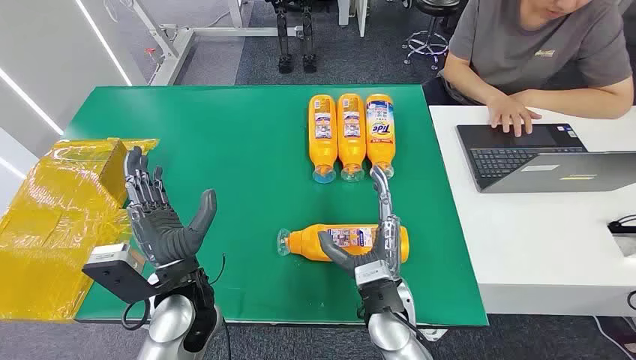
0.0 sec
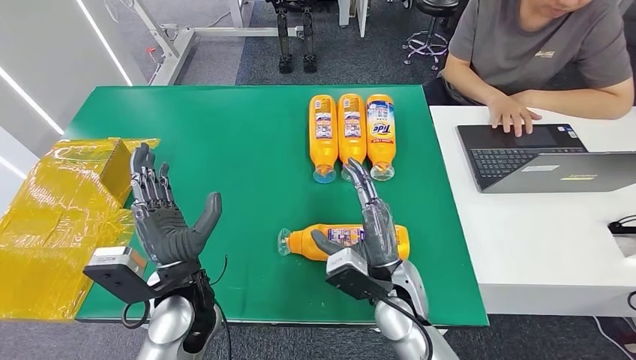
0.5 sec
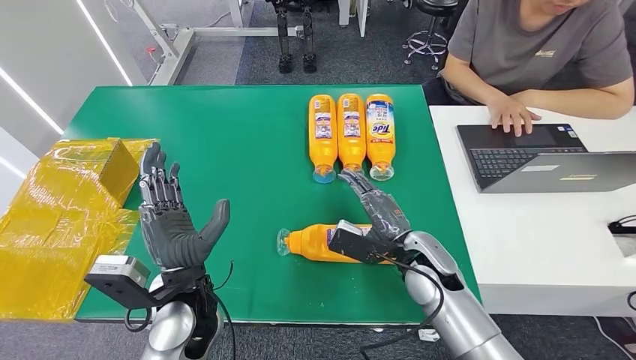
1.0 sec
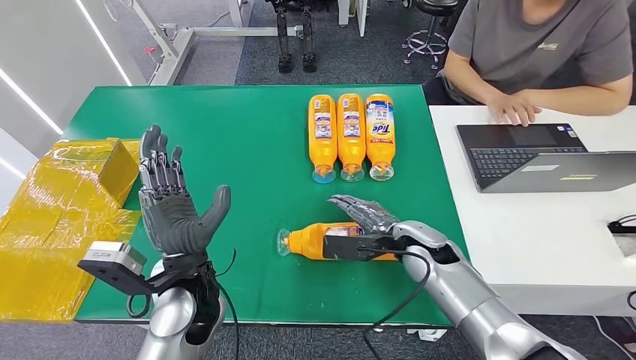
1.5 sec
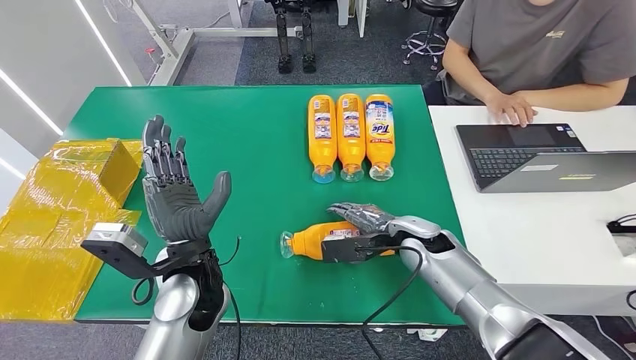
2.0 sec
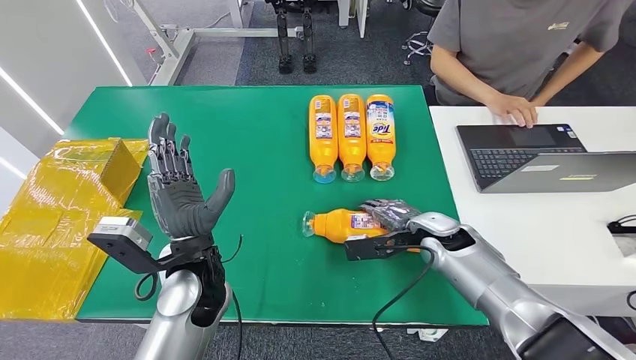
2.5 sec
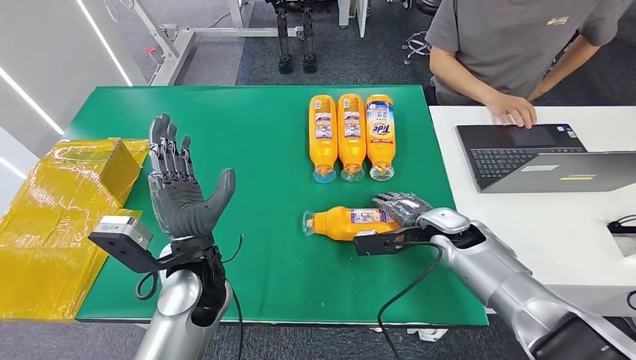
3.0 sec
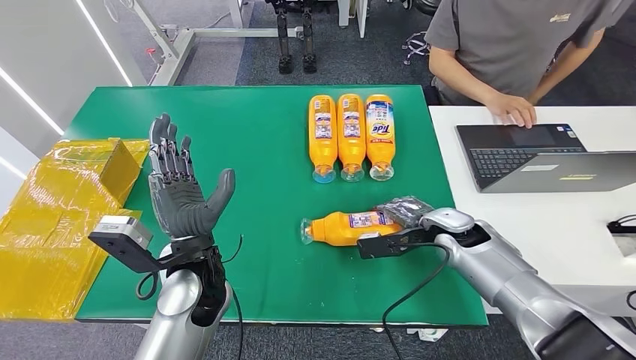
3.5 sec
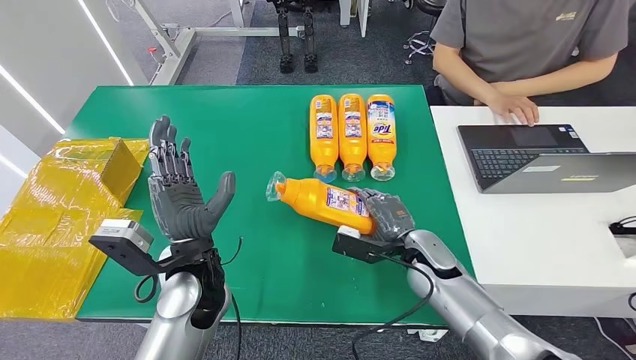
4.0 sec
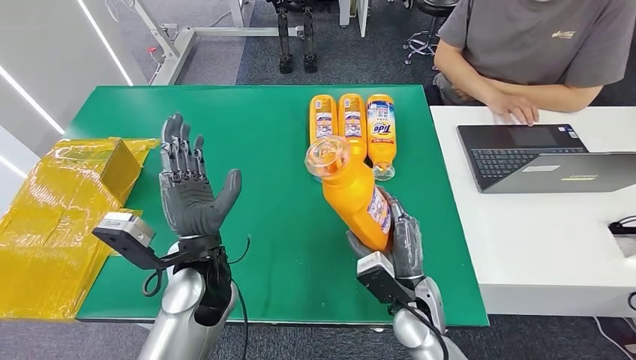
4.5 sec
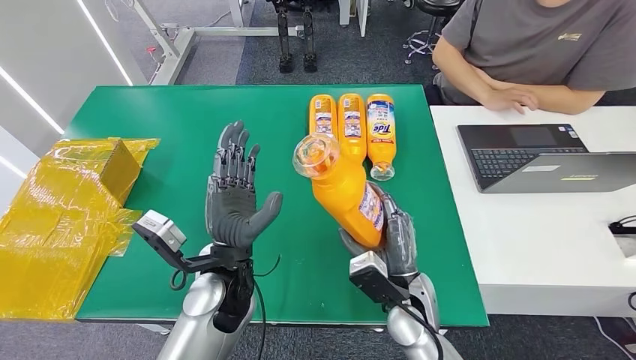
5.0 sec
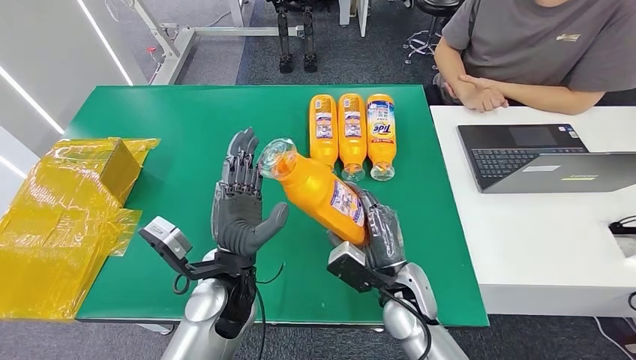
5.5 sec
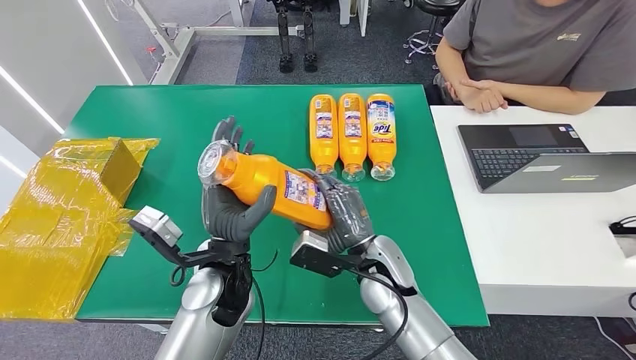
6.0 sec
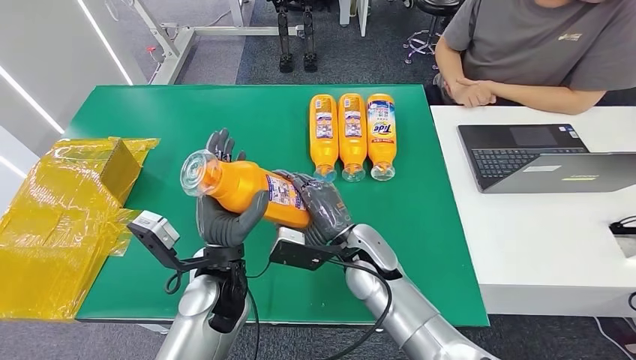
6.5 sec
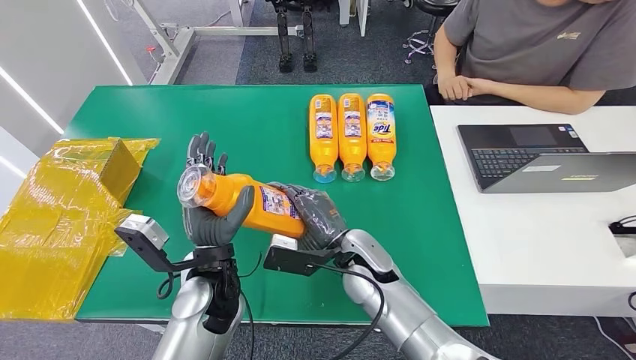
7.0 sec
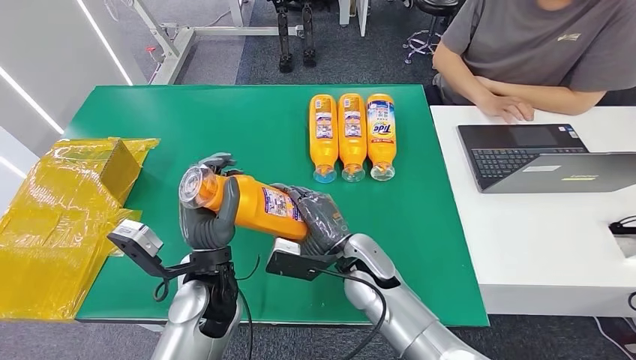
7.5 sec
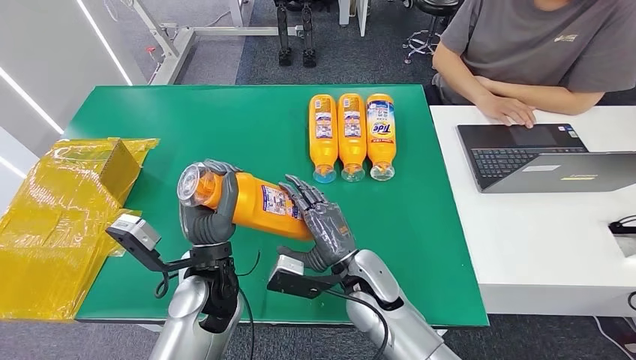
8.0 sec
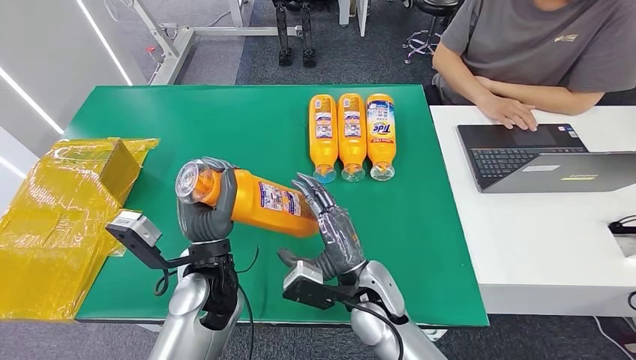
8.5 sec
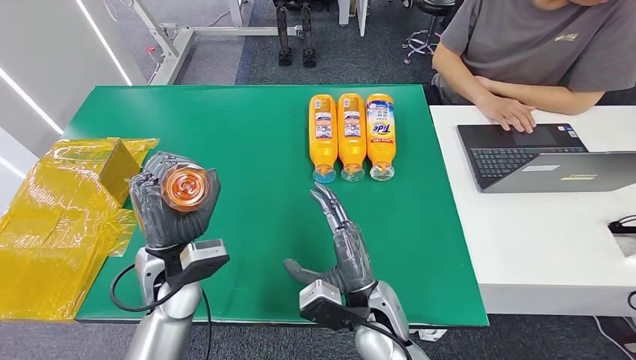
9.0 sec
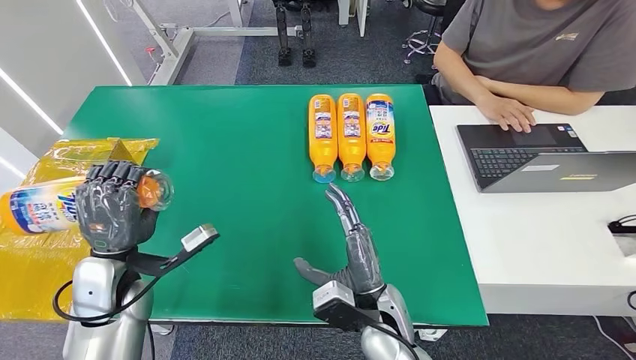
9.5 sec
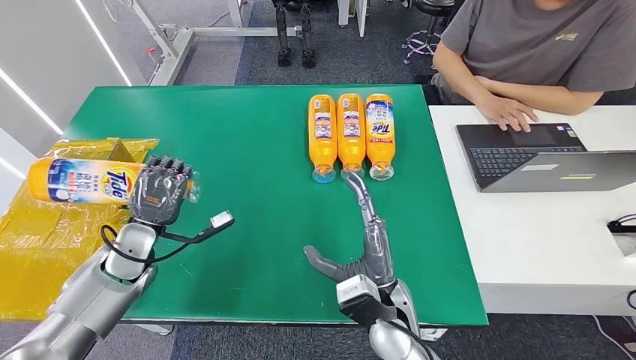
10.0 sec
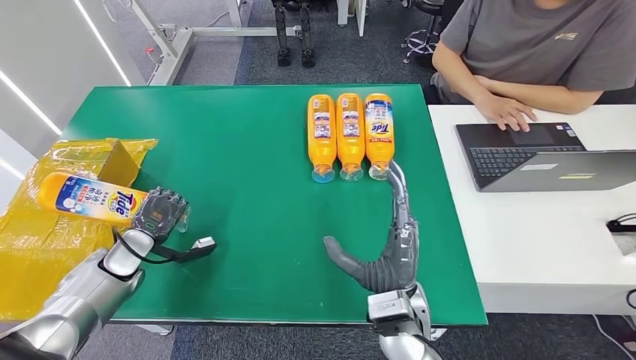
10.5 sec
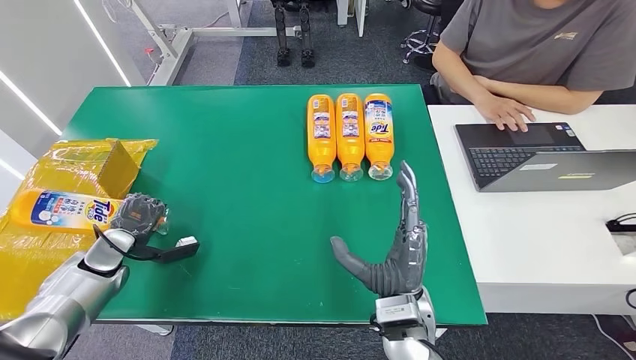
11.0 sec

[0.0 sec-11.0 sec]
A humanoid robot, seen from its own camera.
Step, 0.0 sec to 4.5 sec: Pick up the bottle from the table.
2.0 sec to 3.5 sec: The right hand shifts approximately 5 cm to the right.
5.5 sec to 7.5 sec: The right hand goes some 5 cm to the left.
7.5 sec to 9.0 sec: The left hand travels to the left by some 5 cm. The right hand heads backward, covering some 10 cm.
9.0 sec to 11.0 sec: The left hand travels to the left and downward by about 25 cm.

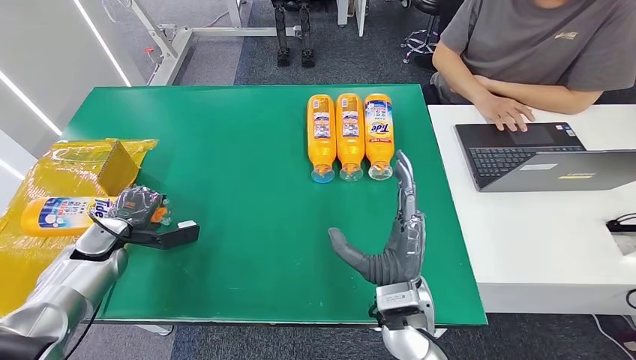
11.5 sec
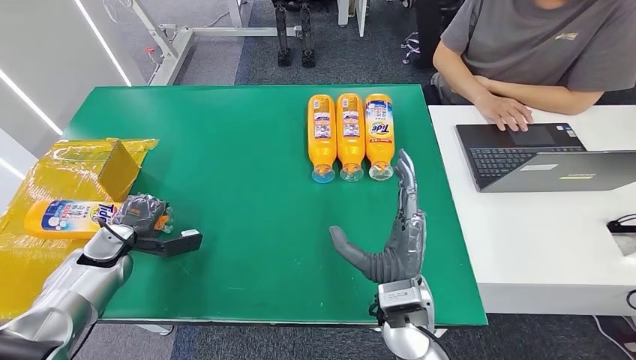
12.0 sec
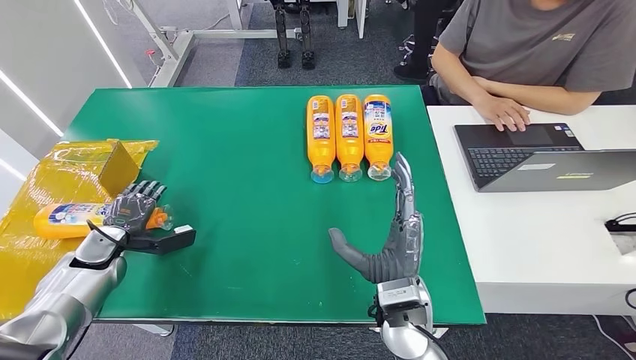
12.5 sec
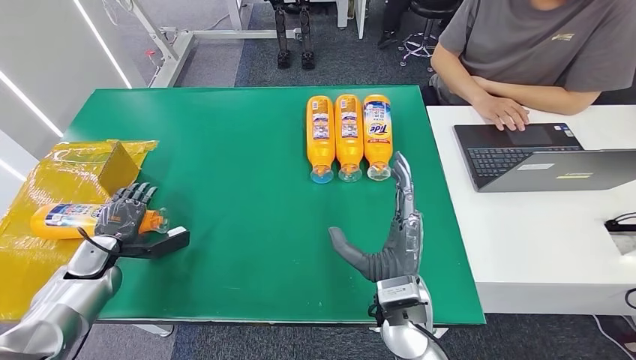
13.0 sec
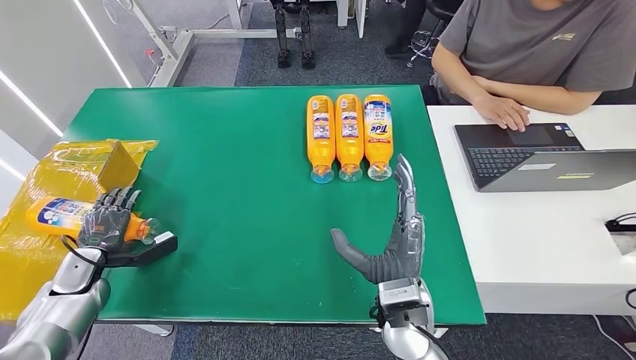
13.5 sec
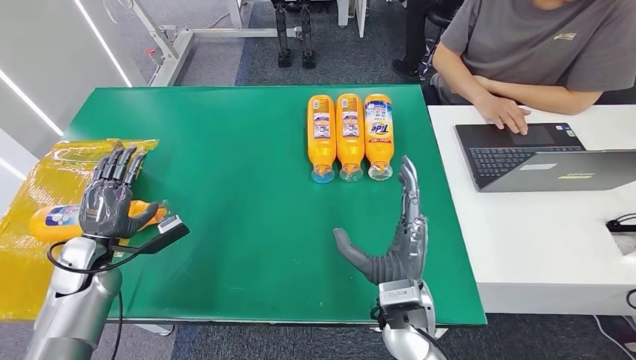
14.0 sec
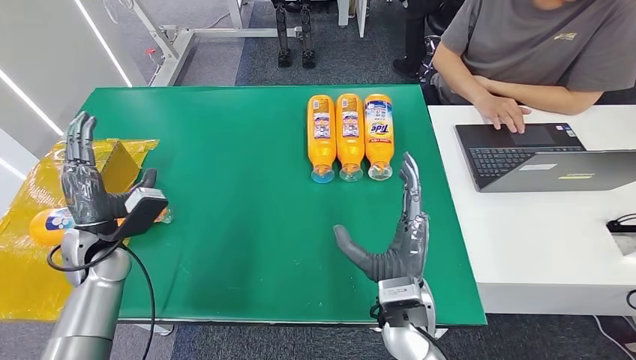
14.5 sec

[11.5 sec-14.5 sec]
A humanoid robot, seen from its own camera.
Step, 11.5 sec to 14.5 sec: Turn the bottle to the front side.
11.5 sec to 13.0 sec: The hands move only a little.
13.0 sec to 14.5 sec: The left hand is displaced upward and to the right by about 10 cm.

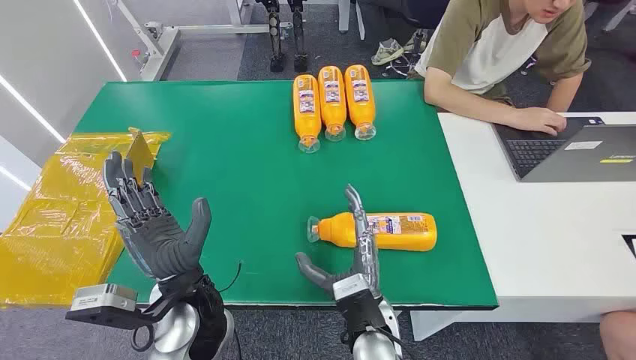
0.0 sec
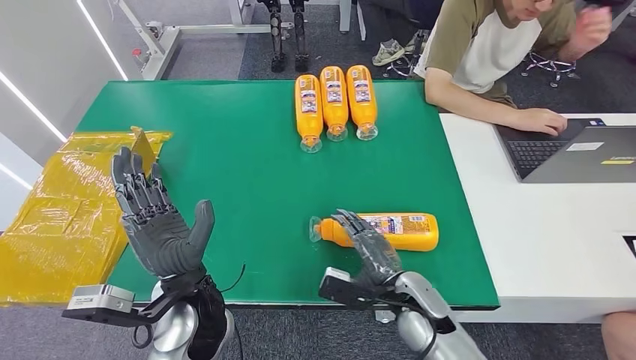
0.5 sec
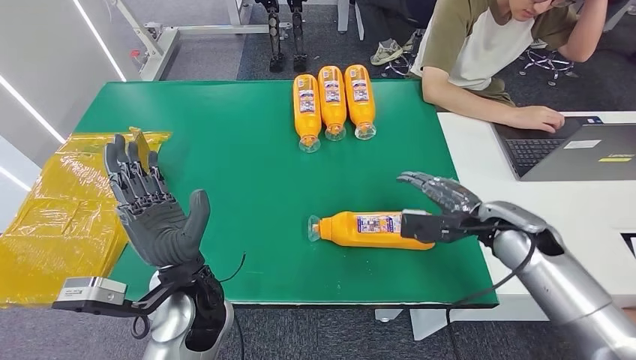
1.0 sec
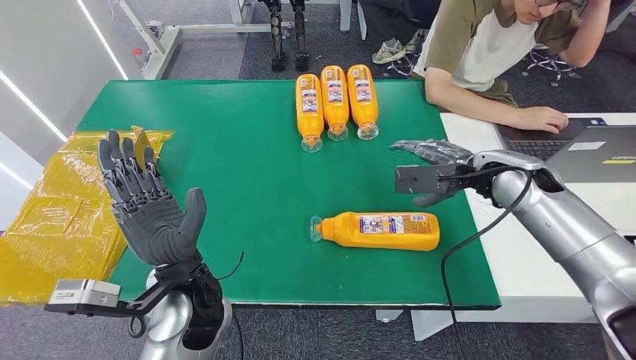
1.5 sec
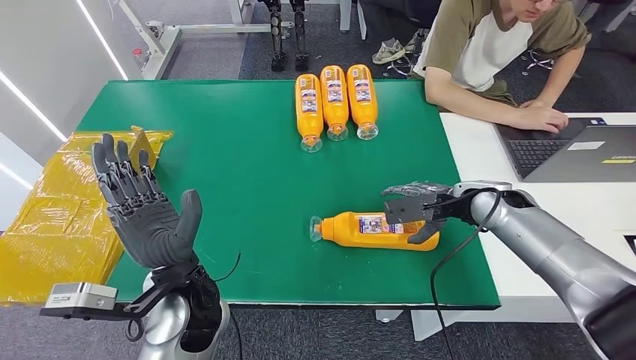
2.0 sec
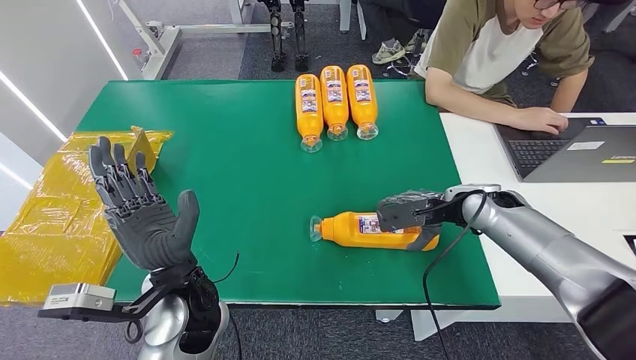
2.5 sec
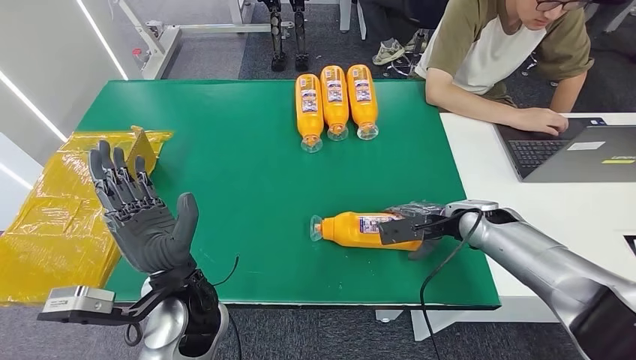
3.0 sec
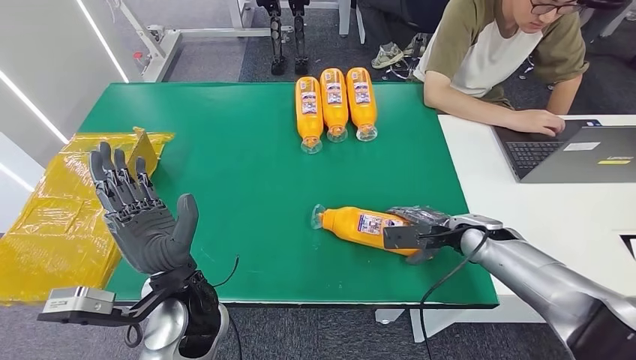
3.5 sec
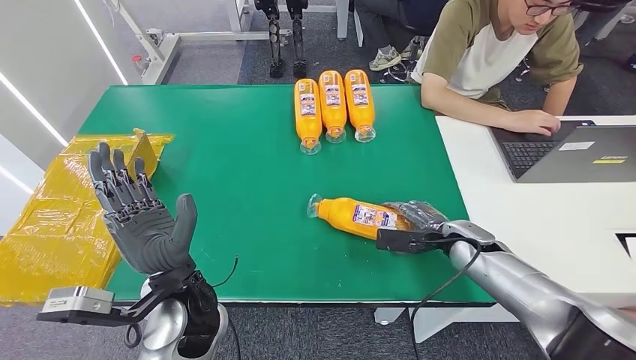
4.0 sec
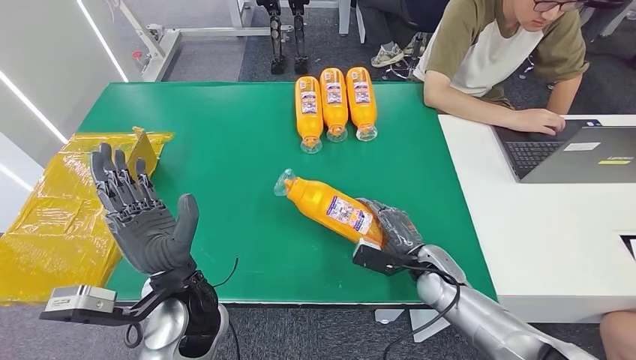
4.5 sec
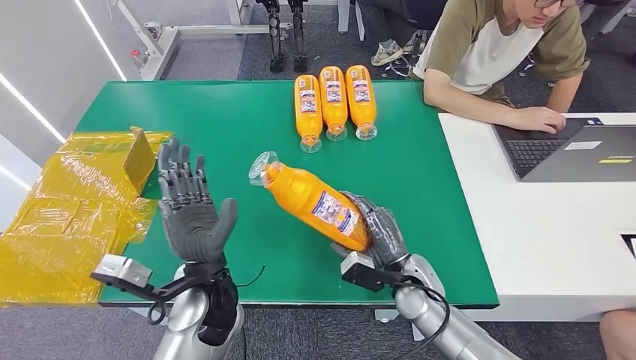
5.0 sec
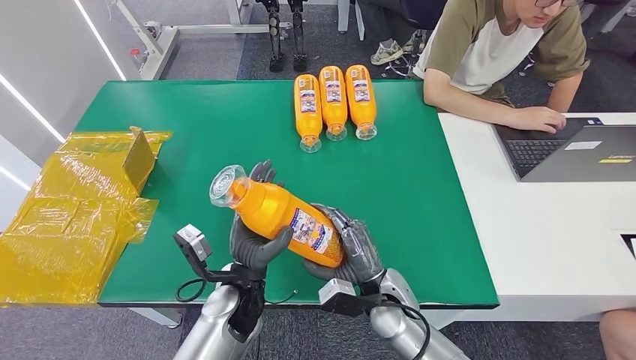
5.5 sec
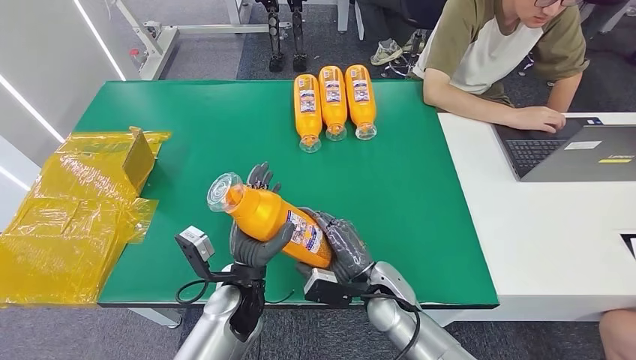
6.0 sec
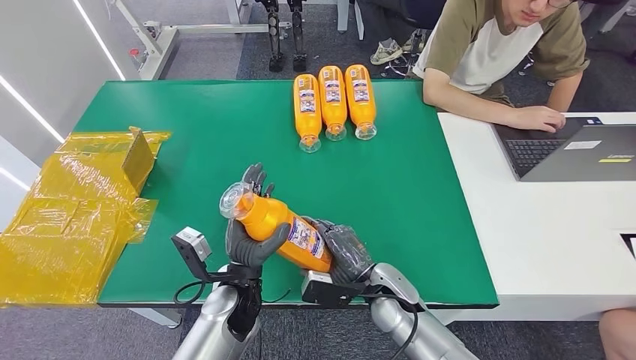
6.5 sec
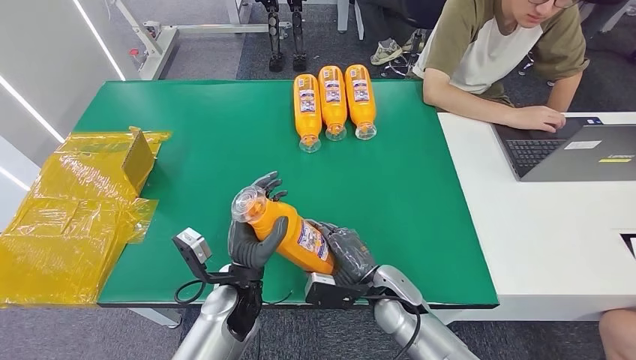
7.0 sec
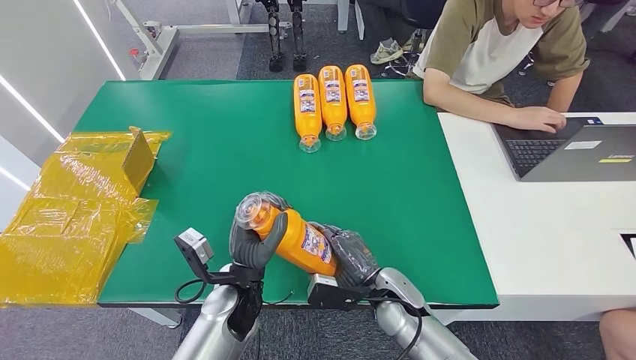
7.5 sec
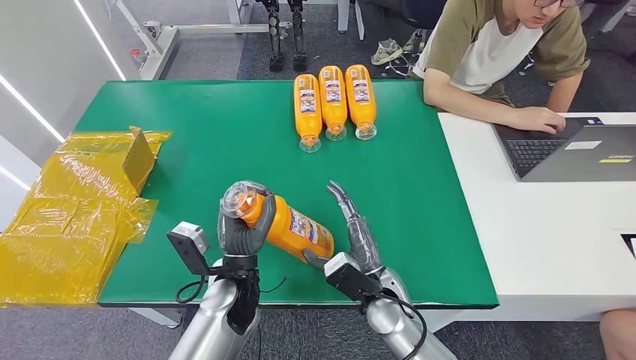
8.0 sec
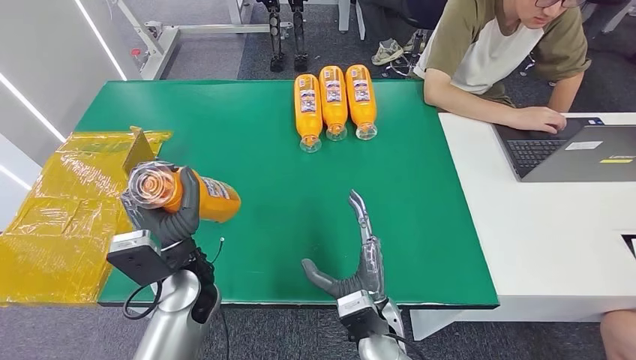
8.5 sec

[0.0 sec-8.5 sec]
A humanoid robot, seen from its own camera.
Step, 0.0 sec to 5.0 sec: Pick up the bottle from the table.
6.5 sec to 8.5 sec: The right hand heads backward, covering some 5 cm. The left hand moves upward and to the left, roughly 10 cm.
